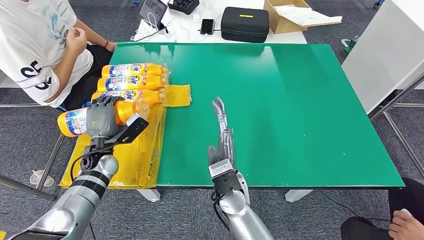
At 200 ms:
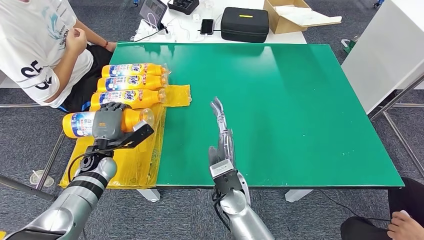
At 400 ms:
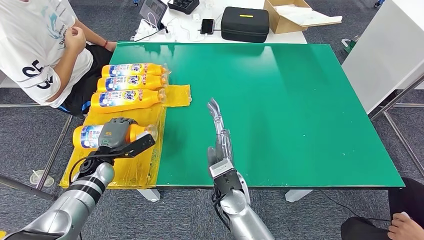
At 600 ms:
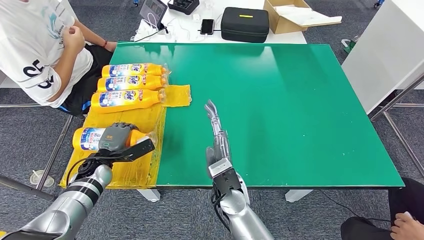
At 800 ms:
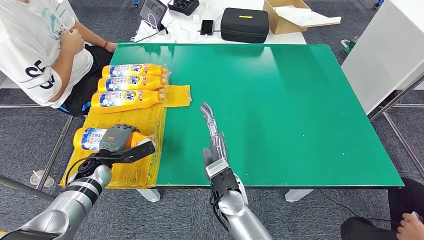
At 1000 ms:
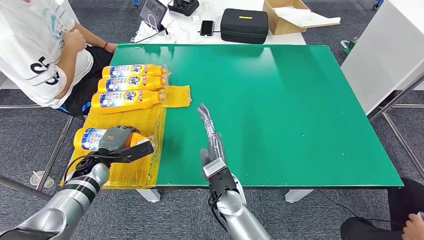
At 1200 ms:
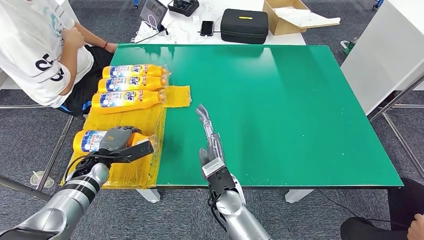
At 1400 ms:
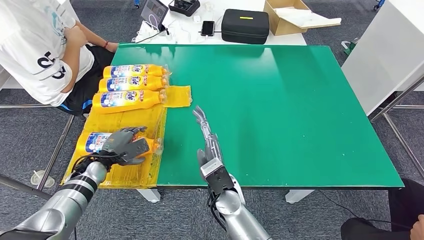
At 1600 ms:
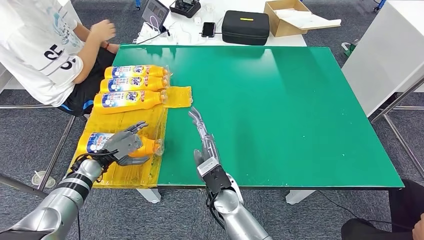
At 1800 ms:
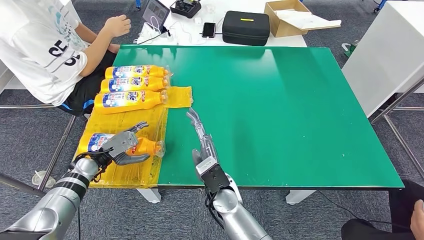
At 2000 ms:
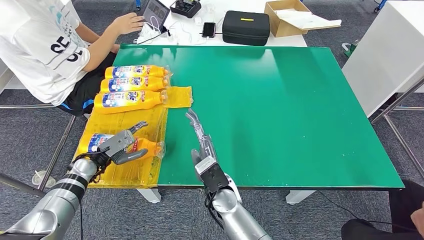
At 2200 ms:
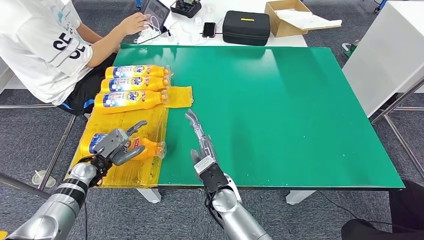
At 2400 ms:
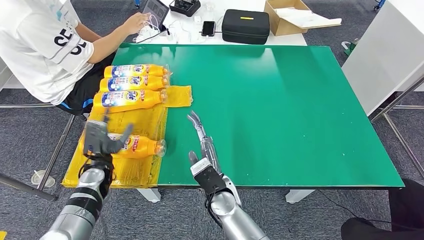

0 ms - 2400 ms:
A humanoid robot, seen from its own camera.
Step, 0 ms - 2400 ms: Flip the fast-moving consumer goods bottle to the front side.
